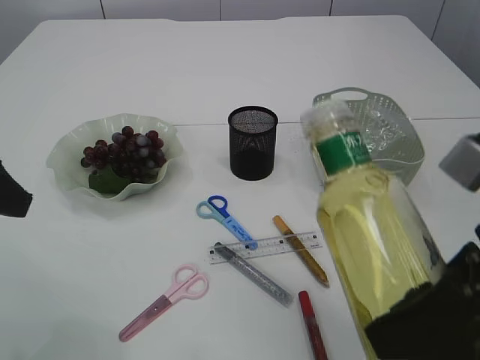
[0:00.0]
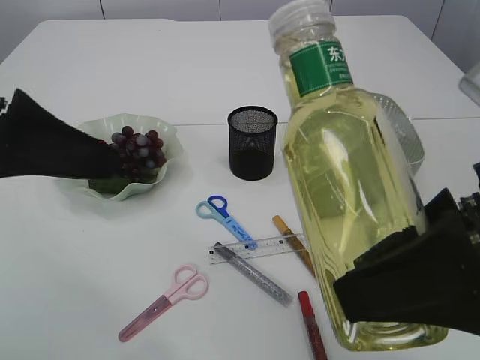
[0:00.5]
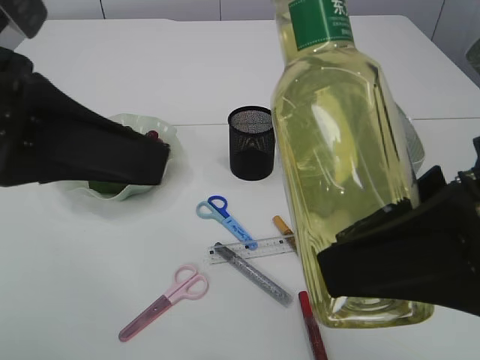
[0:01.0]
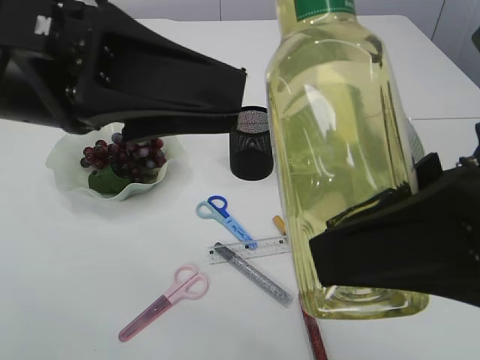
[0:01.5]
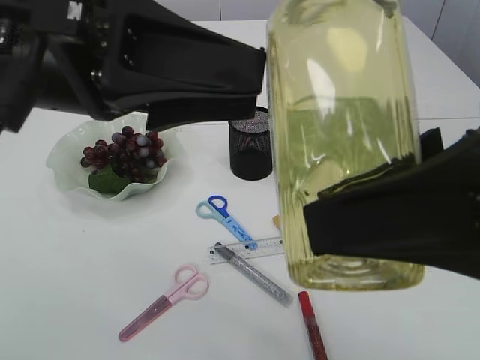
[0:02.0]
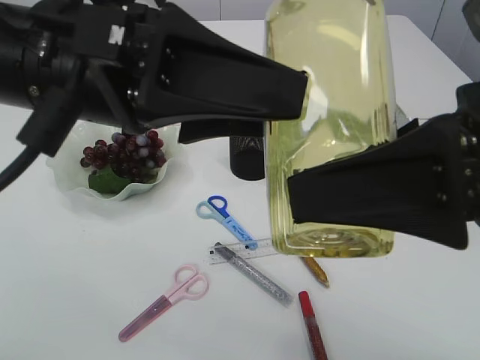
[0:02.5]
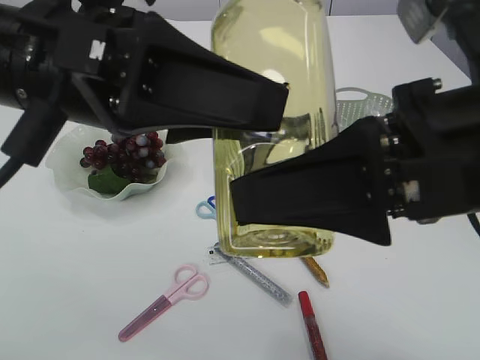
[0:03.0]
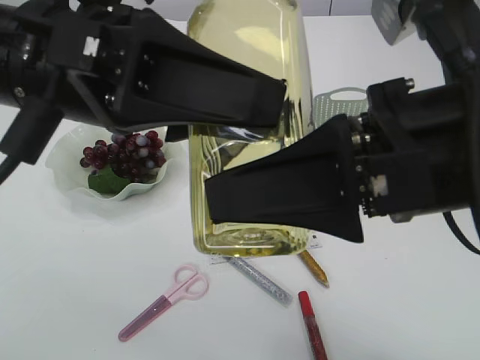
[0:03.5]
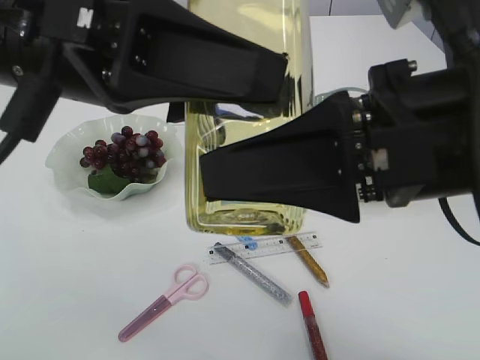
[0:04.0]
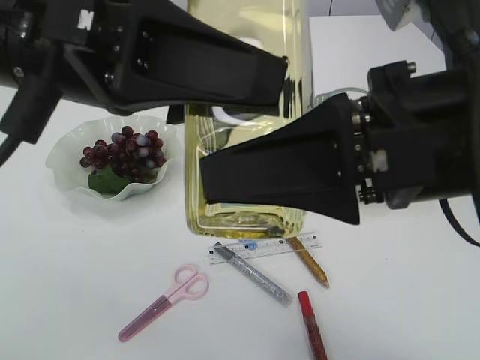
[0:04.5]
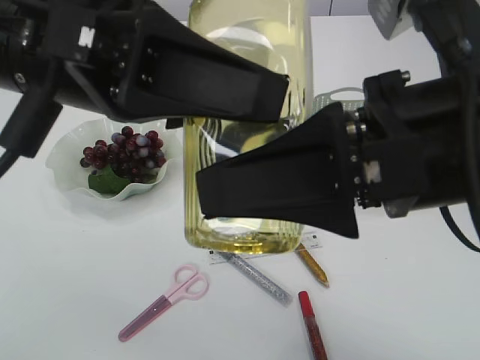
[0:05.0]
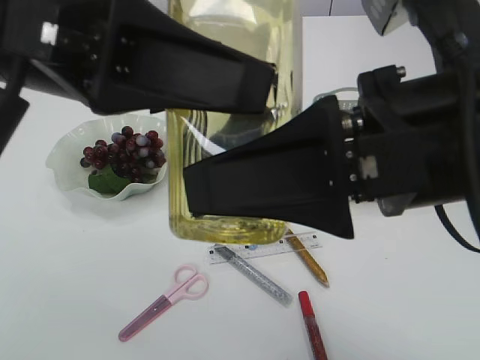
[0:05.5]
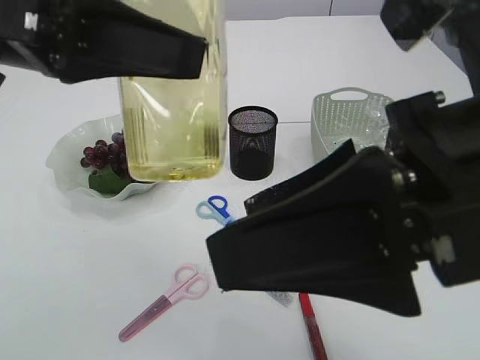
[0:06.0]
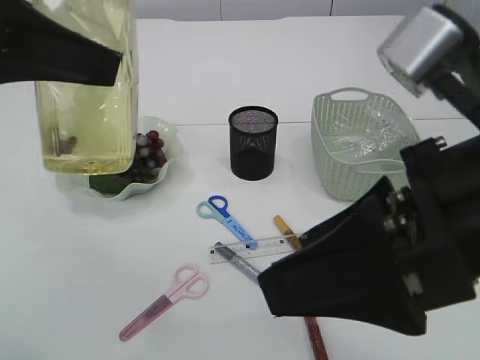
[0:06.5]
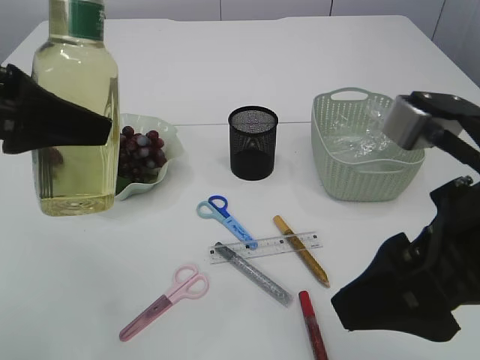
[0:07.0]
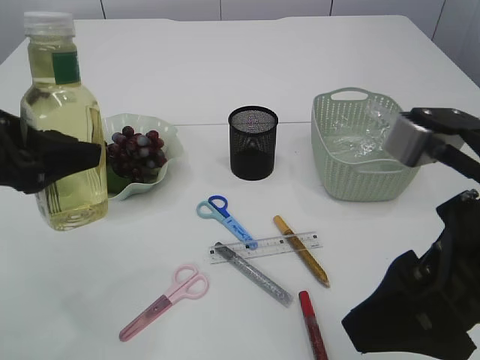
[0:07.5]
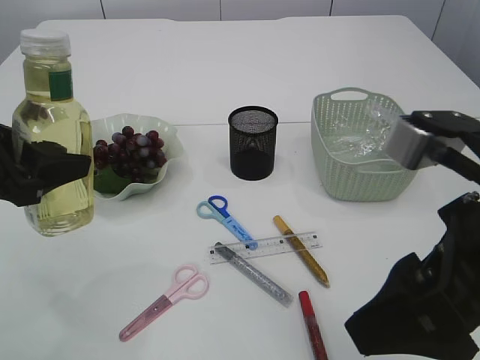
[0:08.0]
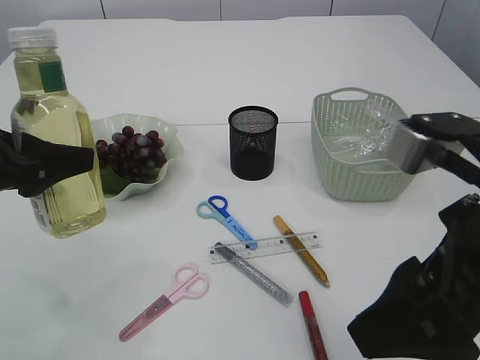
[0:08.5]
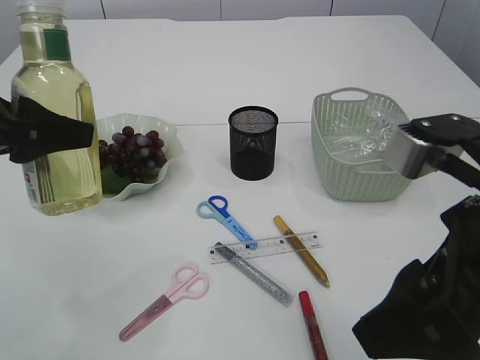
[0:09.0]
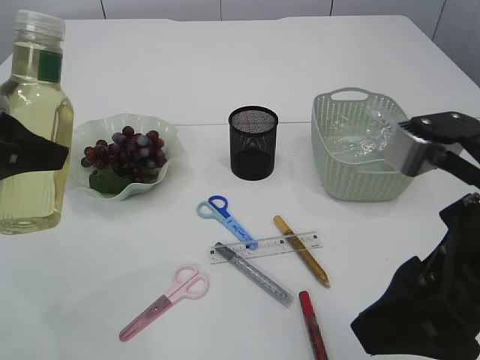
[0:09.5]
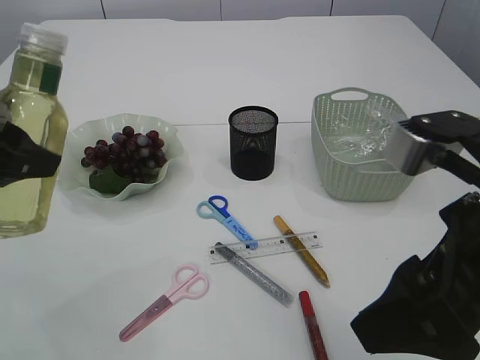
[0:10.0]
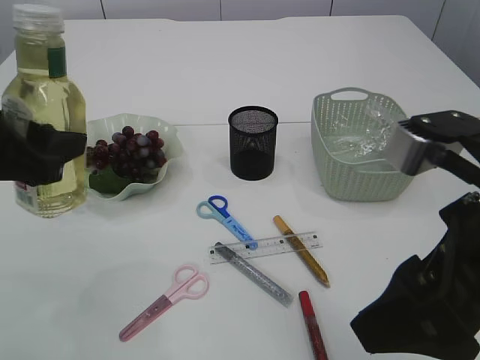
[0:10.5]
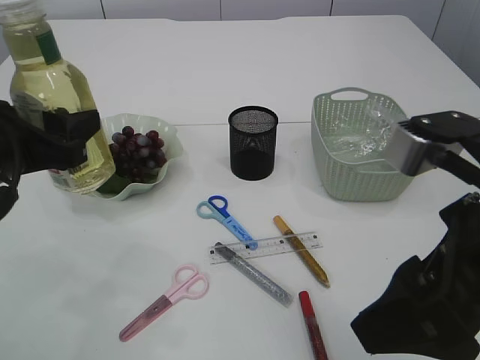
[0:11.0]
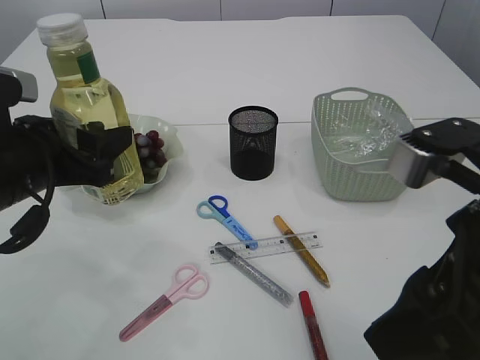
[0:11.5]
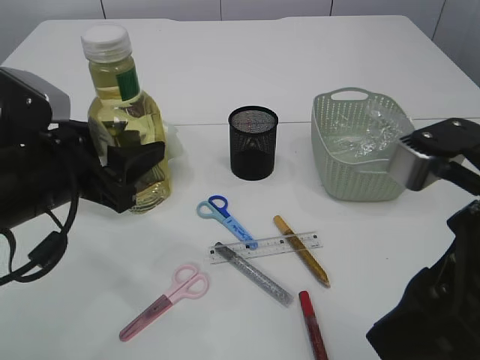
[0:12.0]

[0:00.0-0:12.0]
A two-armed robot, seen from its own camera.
Step, 0.0 to 6.0 s: transfer the bottle to the left arm.
0.0 to 2.0 s: The right gripper shifts about 5 cm upward. Meanwhile the left gripper moves to the right, about 15 cm.
2.0 to 4.0 s: The right gripper moves roughly 5 cm.
4.0 to 6.0 s: The left gripper moves about 5 cm.
6.0 to 8.0 s: The left gripper moves downward and to the left, some 15 cm, while the right gripper moves roughly 5 cm.
10.0 to 12.0 s: The left gripper travels downward and to the right by some 10 cm.

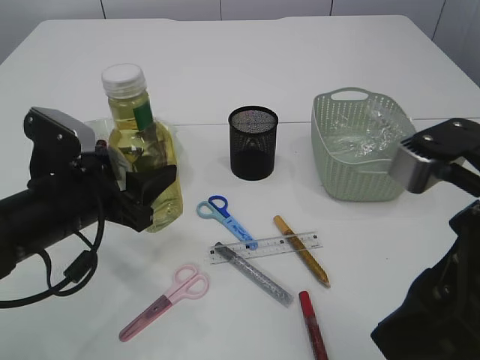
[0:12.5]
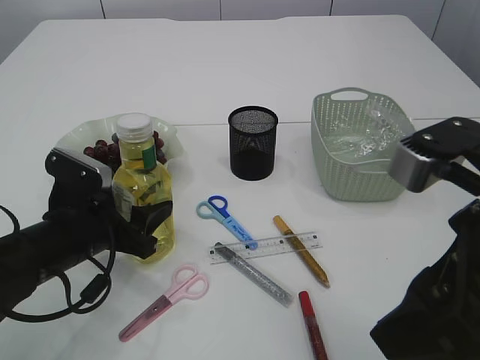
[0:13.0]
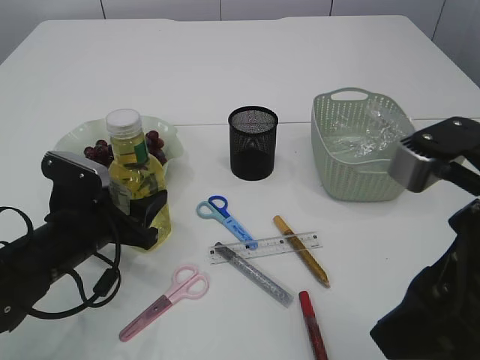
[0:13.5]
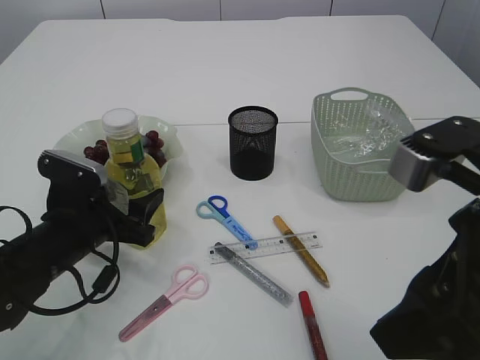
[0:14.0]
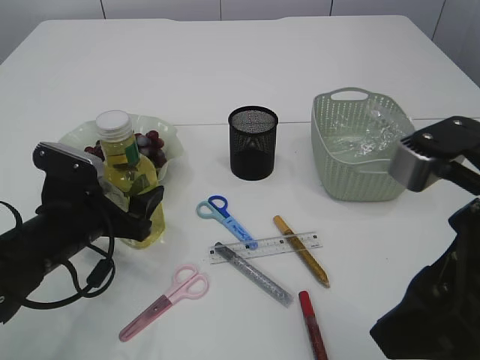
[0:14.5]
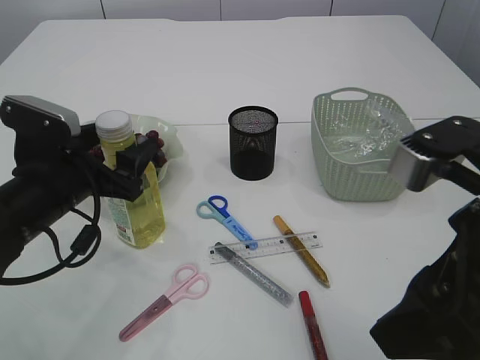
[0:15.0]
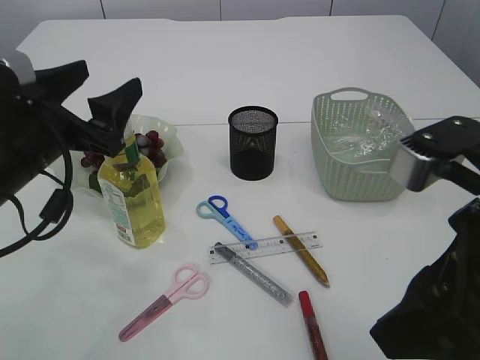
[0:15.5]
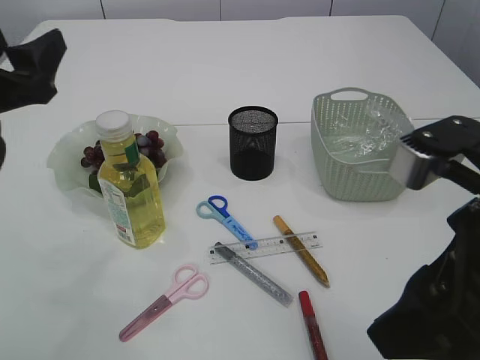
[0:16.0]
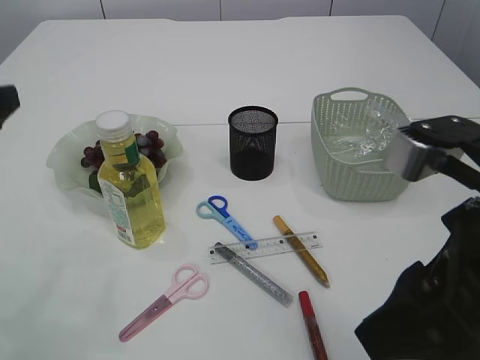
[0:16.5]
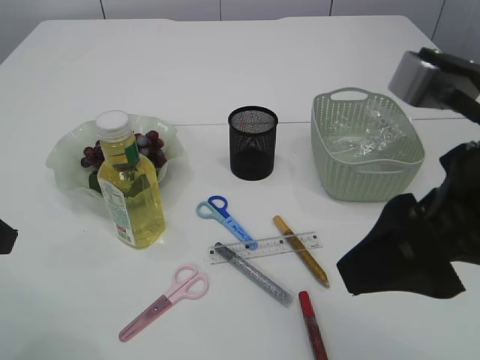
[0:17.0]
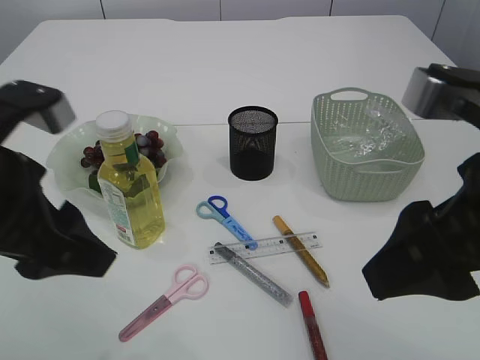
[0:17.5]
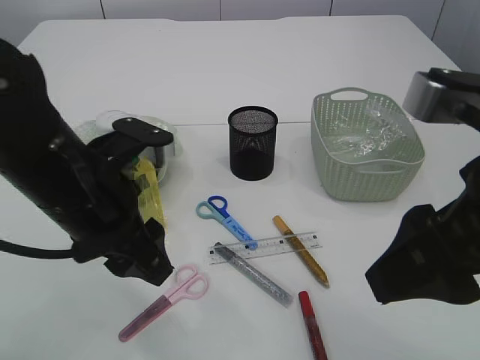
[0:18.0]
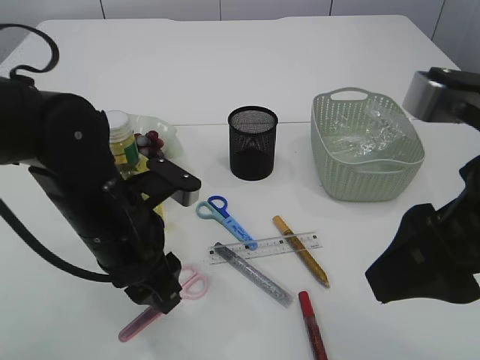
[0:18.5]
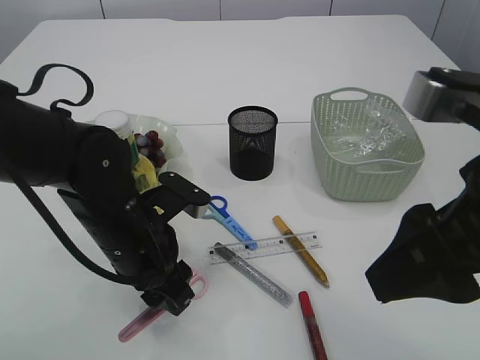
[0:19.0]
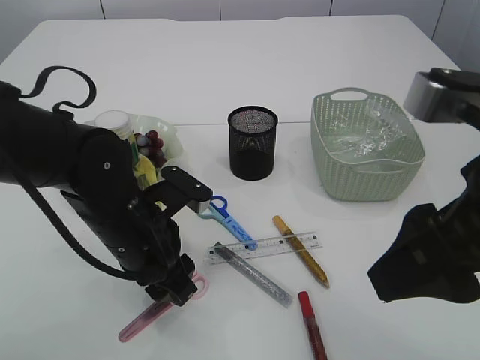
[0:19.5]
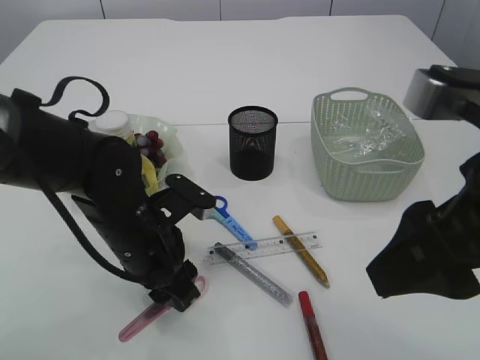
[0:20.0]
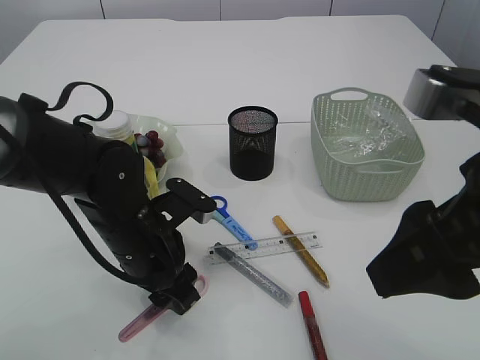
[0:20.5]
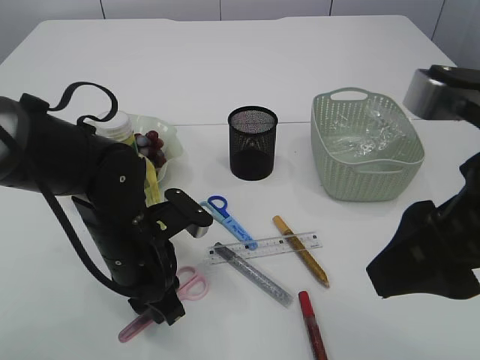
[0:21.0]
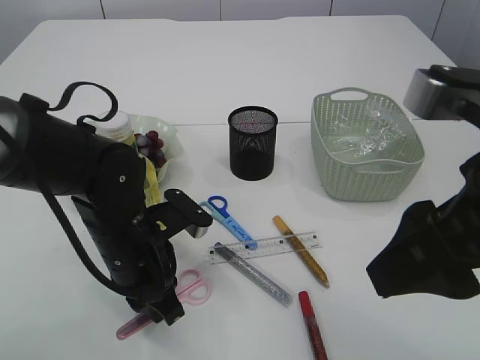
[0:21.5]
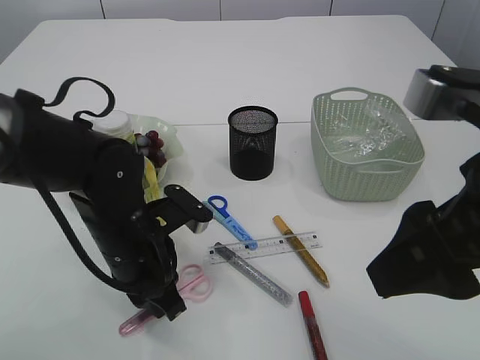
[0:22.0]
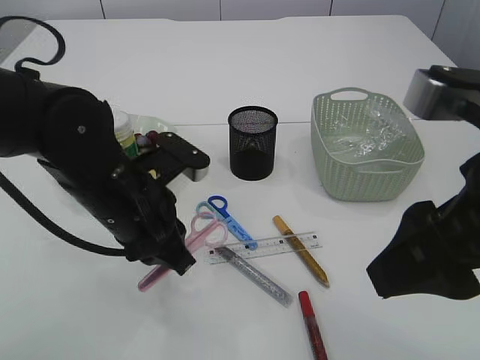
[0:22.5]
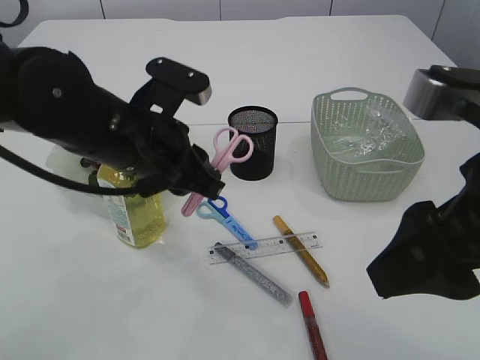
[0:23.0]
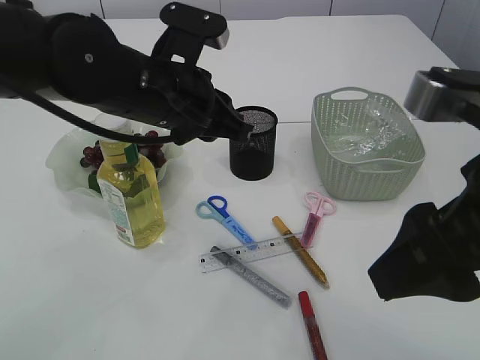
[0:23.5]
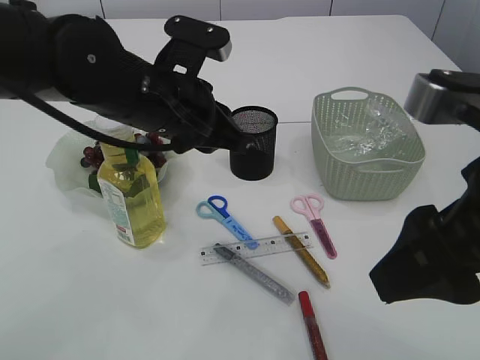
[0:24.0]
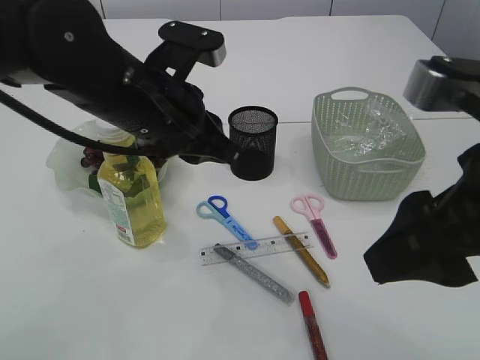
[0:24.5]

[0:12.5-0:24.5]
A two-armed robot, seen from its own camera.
Step, 12.5 to 15.5 s: Place the bottle.
Step, 16.0 to 22.5 s: pick up the pink scissors.
12.5 to 14.5 s: The left gripper goes roughly 5 cm downward.
14.5 to 16.5 s: The left gripper shifts some 20 cm upward and to the left.
16.5 to 18.5 s: The left gripper heads to the right and downward, covering roughly 20 cm.
18.5 to 20.5 s: The left gripper shifts approximately 5 cm downward.
20.5 to 22.5 s: The left gripper moves upward, approximately 5 cm, and closes its fingers.
22.5 to 24.5 s: The left gripper heads upward, covering roughly 10 cm.

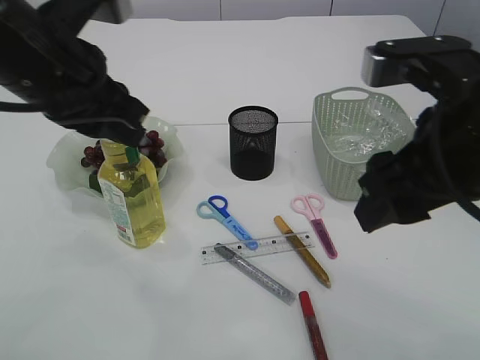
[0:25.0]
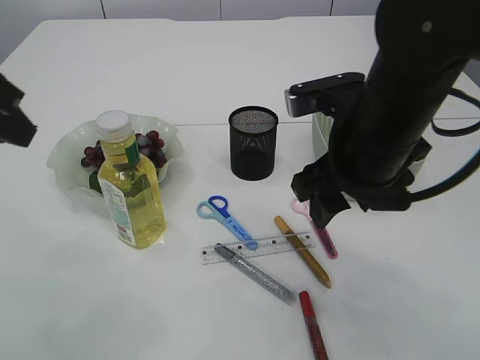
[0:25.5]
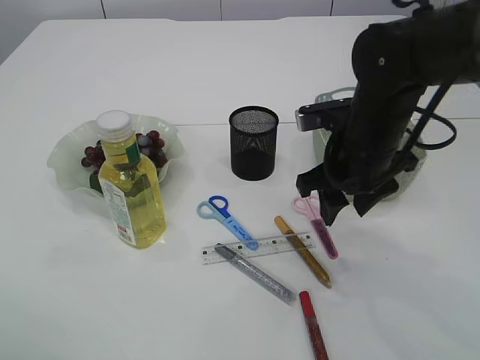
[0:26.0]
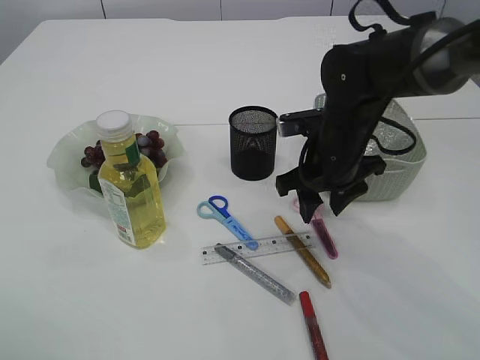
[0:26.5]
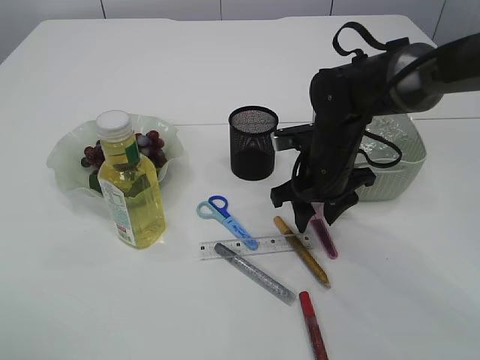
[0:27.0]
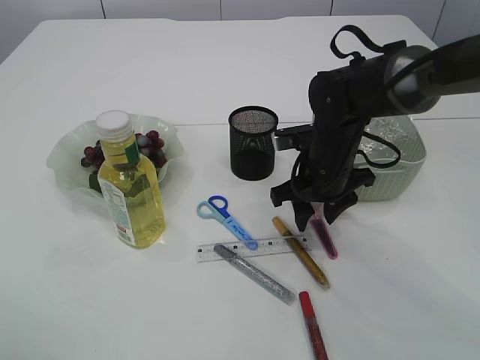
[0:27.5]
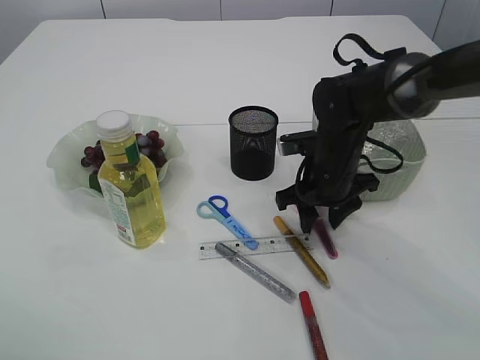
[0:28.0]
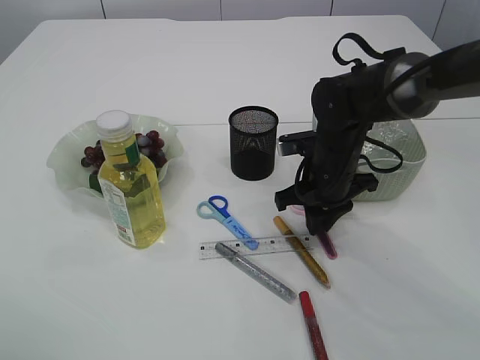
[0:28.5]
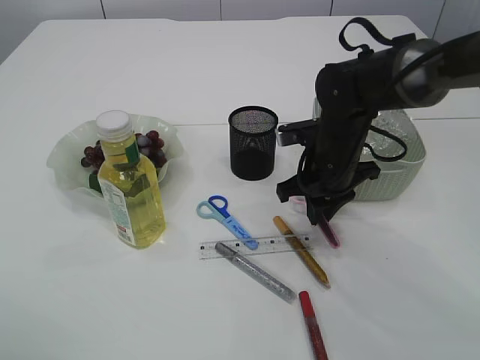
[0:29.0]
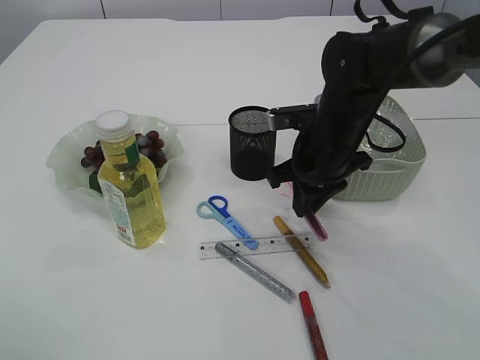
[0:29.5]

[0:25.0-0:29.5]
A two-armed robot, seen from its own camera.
25.0 to 27.0 s: The left gripper moves to the left and backward, about 15 cm, while the right gripper moves forward and downward, approximately 25 cm.
27.0 to 29.5 s: The right gripper closes up.
